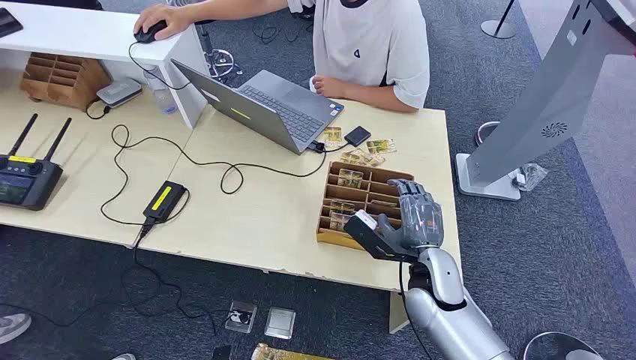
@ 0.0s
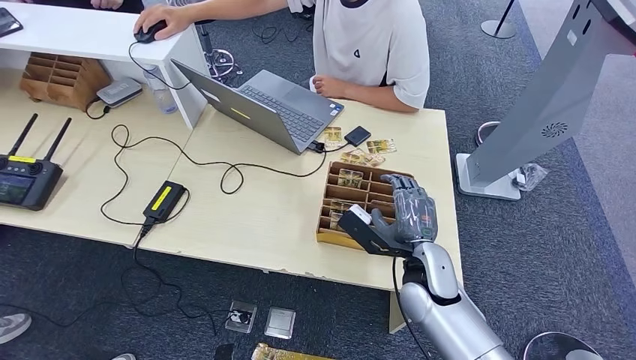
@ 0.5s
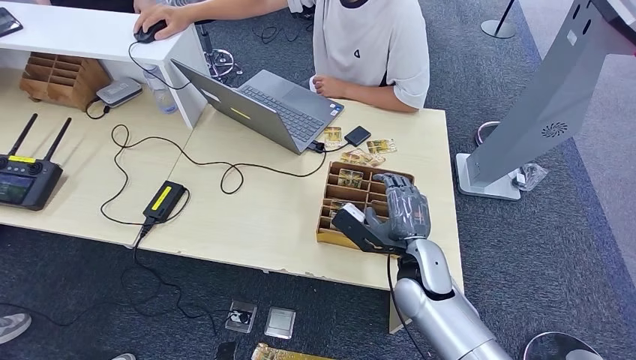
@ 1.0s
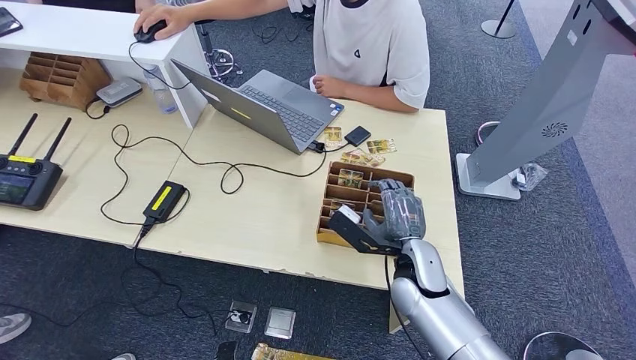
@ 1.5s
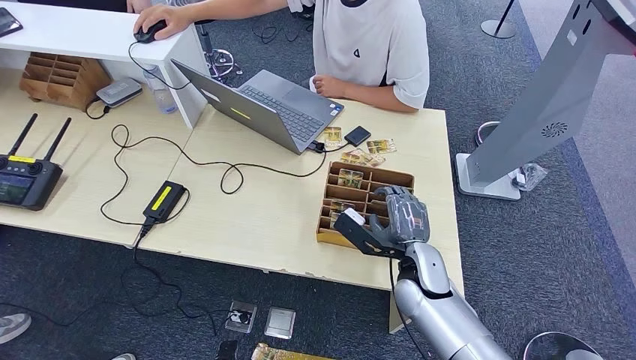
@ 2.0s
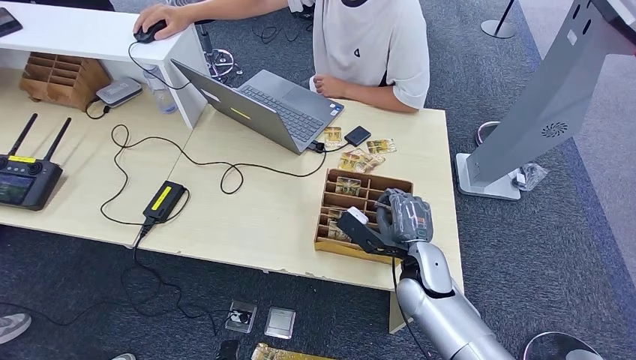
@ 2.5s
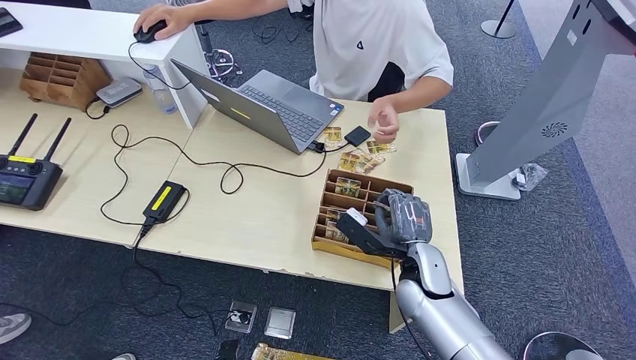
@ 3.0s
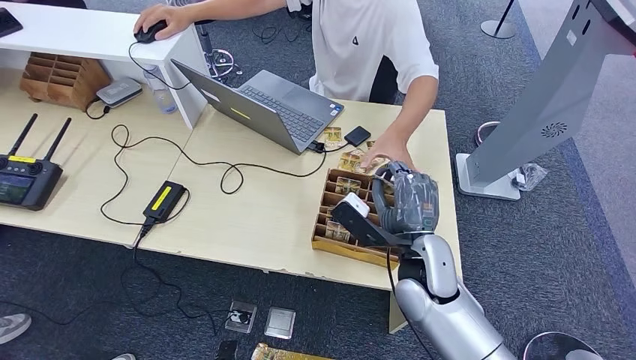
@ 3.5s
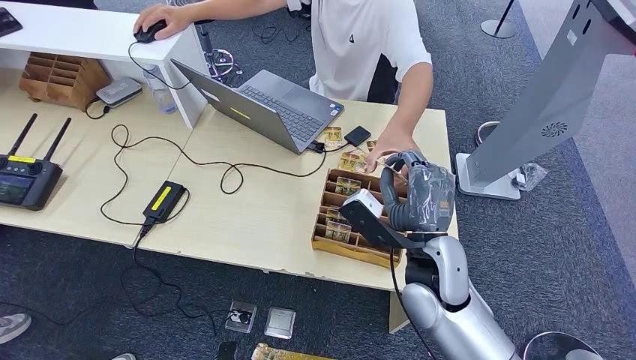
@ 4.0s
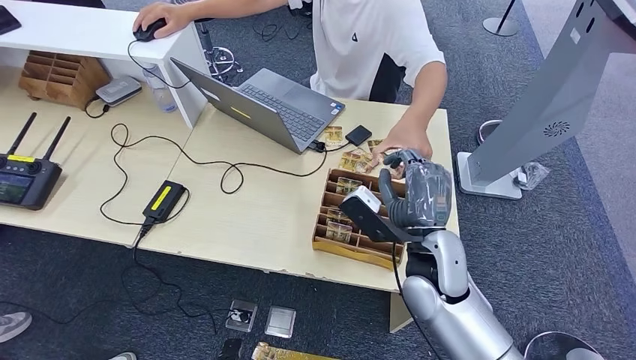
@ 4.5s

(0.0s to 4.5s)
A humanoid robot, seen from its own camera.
Step, 0.0s - 3.0s: Pick up the room card from the card holder.
Step, 3.5s - 4.5s: Hand the room card to the target.
2.0s - 4.5s: The right hand shifts some 5 cm upward.
